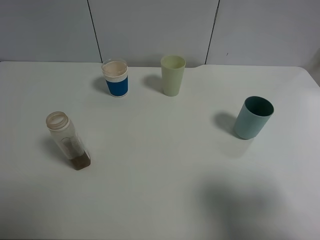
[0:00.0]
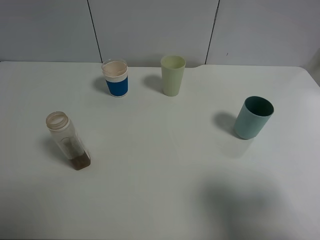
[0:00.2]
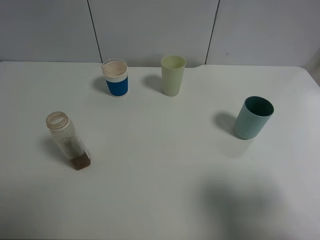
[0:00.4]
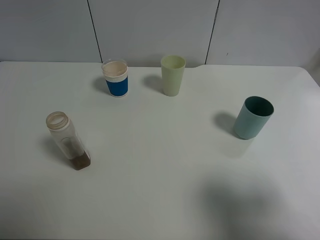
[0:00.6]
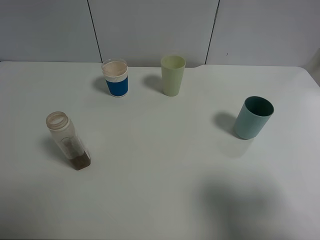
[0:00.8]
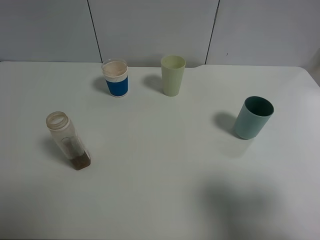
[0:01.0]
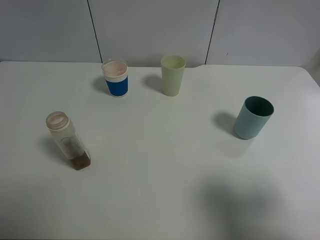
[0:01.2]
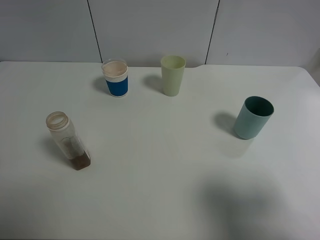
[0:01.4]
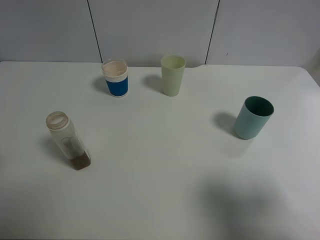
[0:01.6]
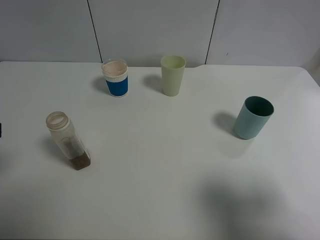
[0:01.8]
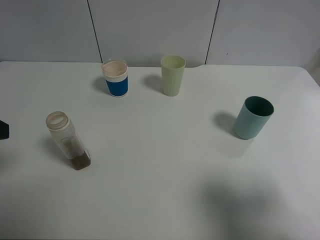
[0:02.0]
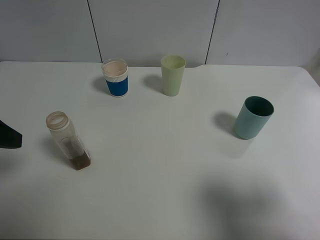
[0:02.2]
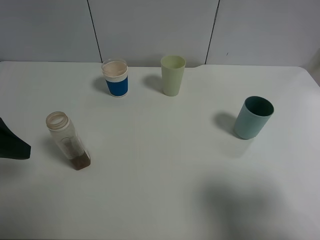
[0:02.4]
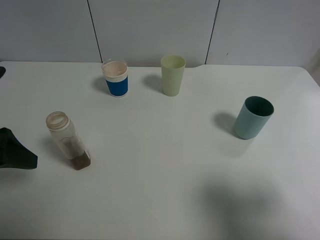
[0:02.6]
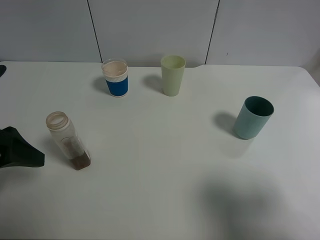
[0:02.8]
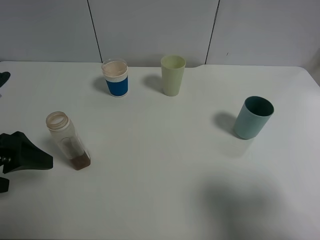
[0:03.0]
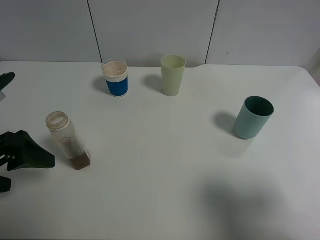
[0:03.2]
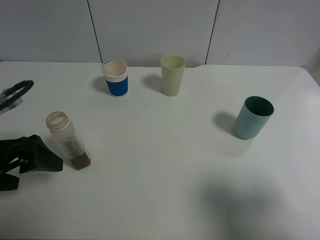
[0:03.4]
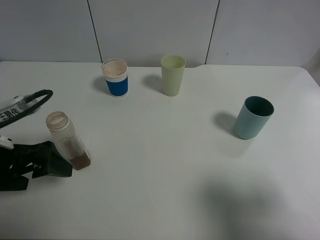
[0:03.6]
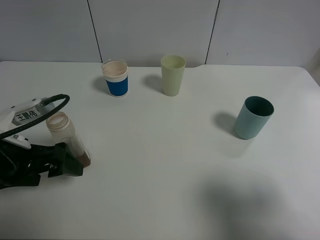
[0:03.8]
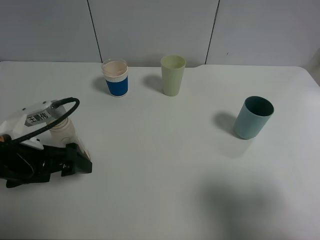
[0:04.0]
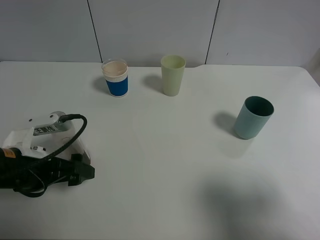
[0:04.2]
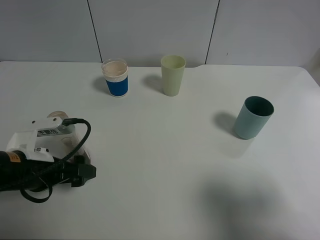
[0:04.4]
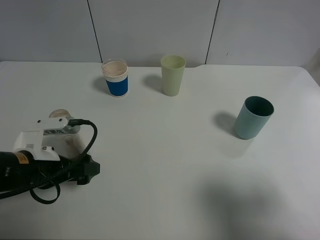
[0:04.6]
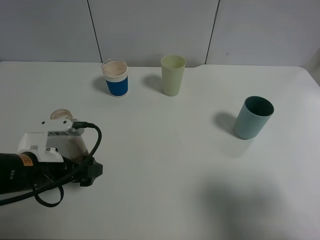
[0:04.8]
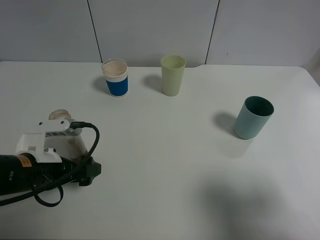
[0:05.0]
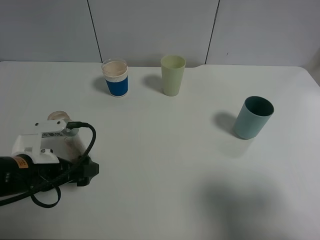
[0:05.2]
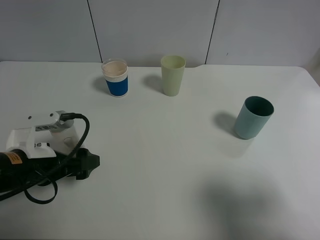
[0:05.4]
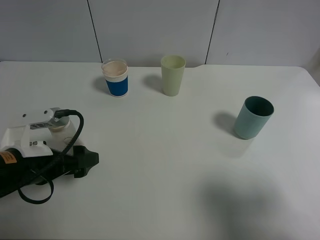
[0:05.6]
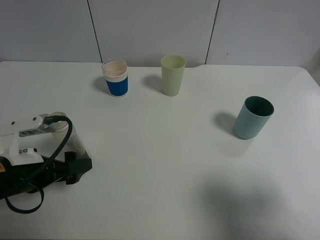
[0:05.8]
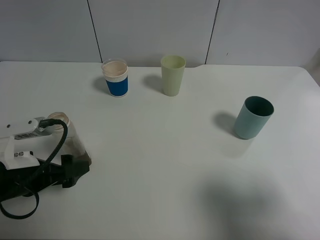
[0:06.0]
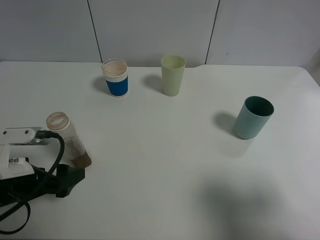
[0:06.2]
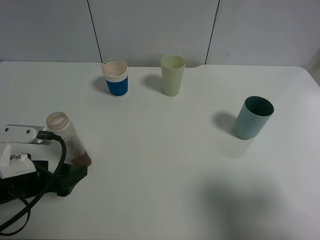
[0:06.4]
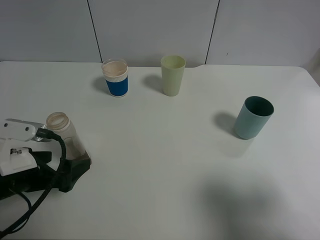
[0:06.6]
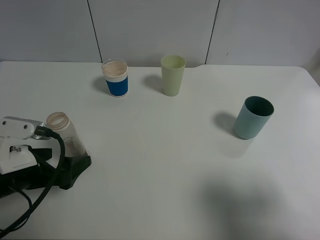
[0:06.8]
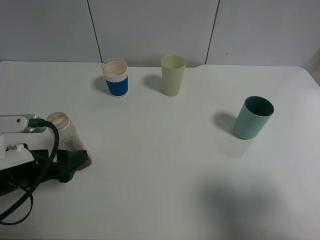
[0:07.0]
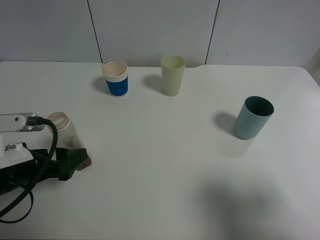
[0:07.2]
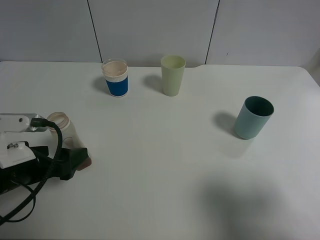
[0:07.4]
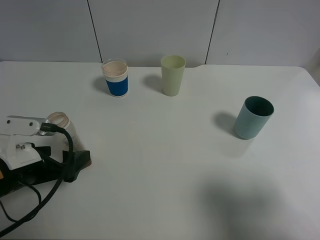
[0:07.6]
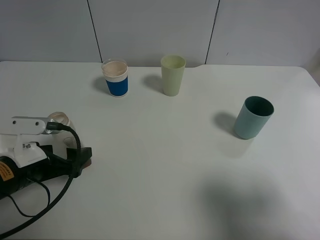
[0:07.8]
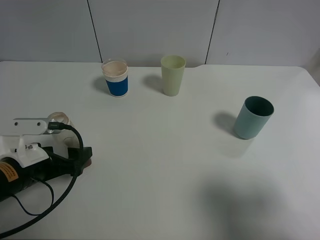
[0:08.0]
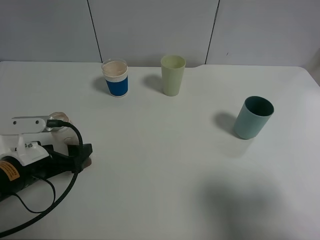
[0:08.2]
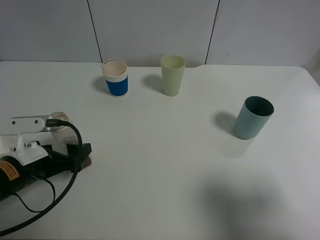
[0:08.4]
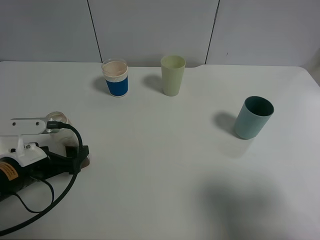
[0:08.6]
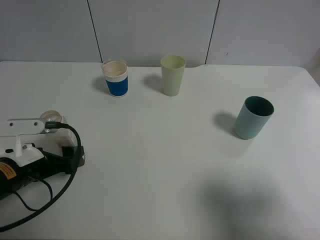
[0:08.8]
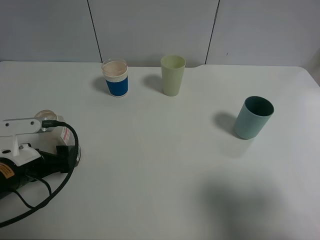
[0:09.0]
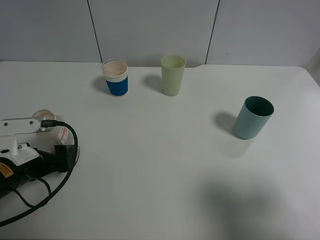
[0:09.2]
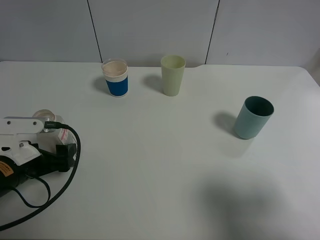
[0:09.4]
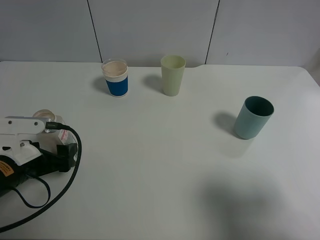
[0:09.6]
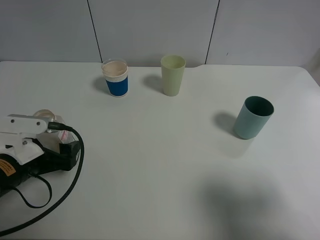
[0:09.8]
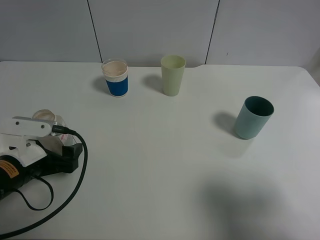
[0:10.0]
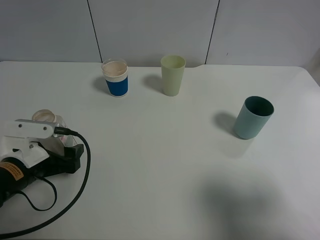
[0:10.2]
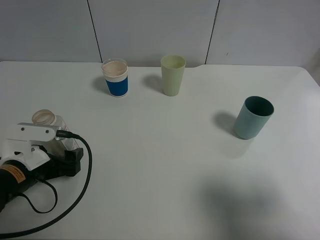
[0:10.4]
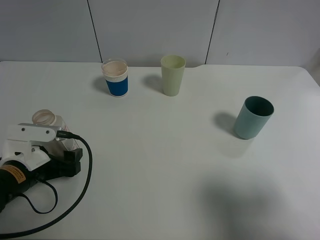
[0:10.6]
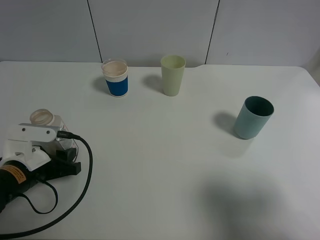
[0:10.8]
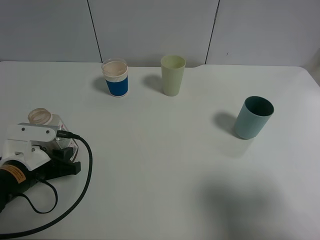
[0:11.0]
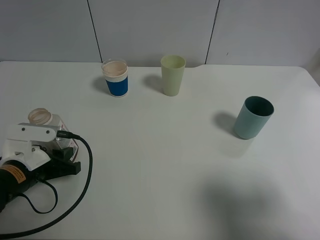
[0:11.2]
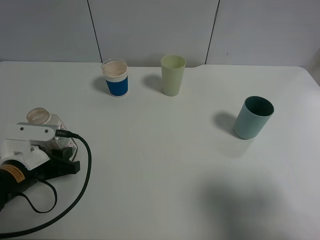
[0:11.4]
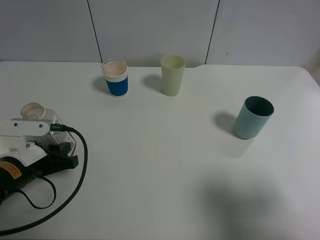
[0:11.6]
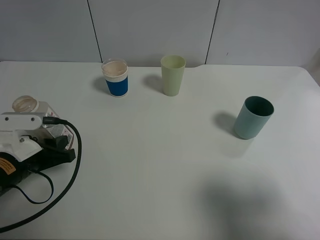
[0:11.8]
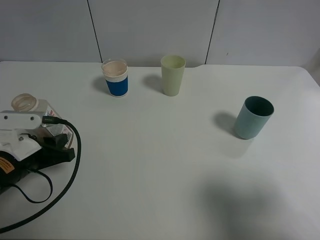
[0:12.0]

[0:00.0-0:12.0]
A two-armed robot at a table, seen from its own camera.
Task of the whole recording: use a clamp to hold the bottle of the drink, pour the beverage into a random cup, then clamp the cup containing the drink and pour the drink into another random cup.
Step, 0:00.0 to 0:11.6: Pick up the drink bottle with left gripper.
0:01.6 to 0:03.0: The left gripper moves downward, approximately 10 cm.
0:03.0 to 0:04.4: The left gripper moves downward and to the right, approximately 10 cm.
0:04.4 to 0:06.0: The grippers stay close to where they were, moving slightly.
0:06.0 to 0:09.0: There are only small adjustments of the grippers.
0:09.0 to 0:10.4: The grippers move only a little.
0:10.4 to 0:12.0: The left gripper closes.

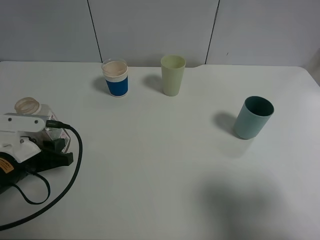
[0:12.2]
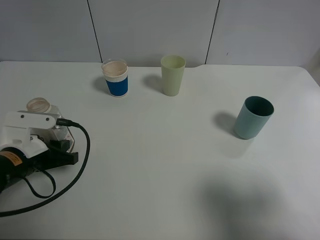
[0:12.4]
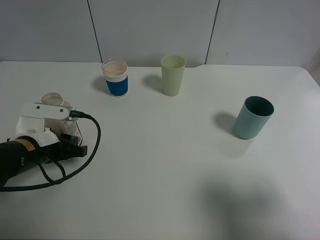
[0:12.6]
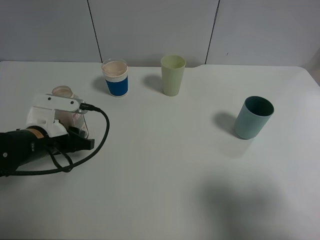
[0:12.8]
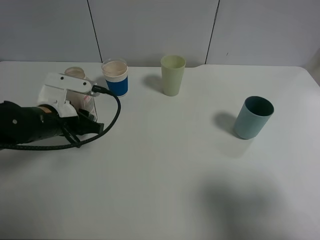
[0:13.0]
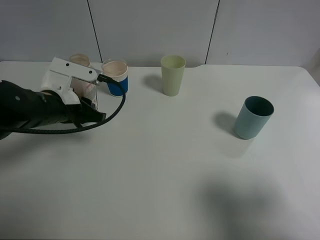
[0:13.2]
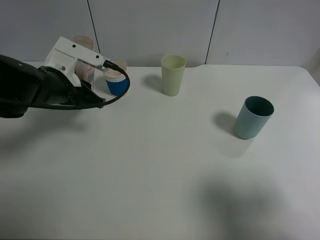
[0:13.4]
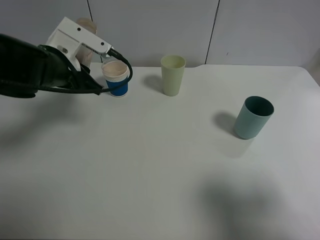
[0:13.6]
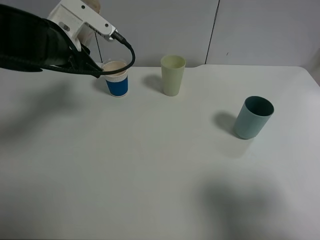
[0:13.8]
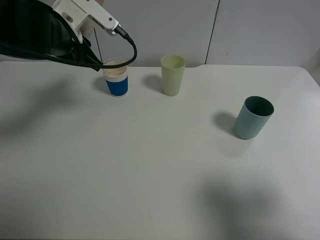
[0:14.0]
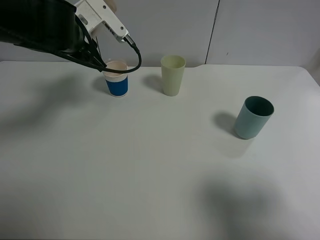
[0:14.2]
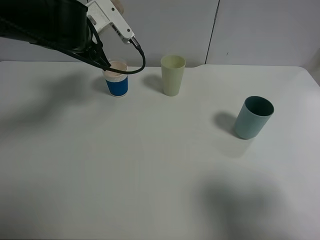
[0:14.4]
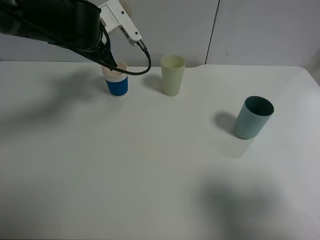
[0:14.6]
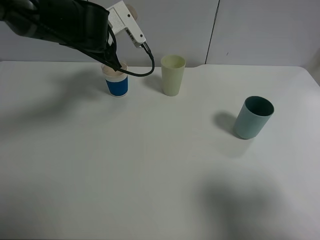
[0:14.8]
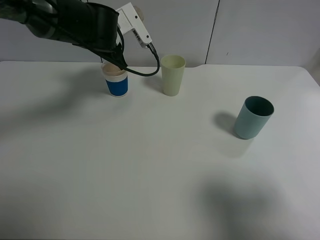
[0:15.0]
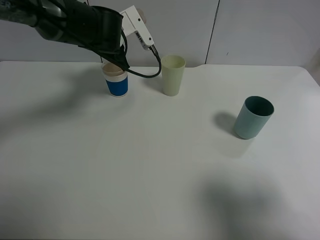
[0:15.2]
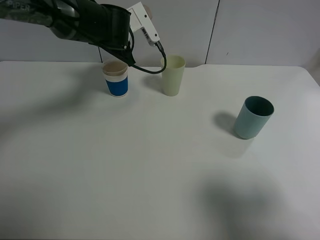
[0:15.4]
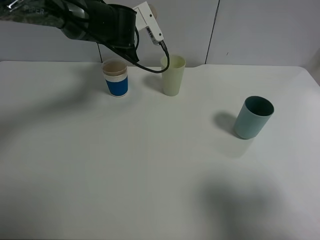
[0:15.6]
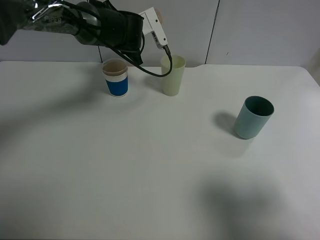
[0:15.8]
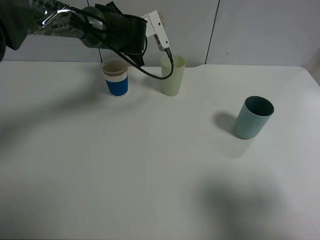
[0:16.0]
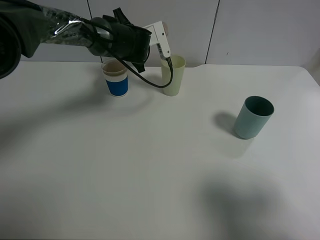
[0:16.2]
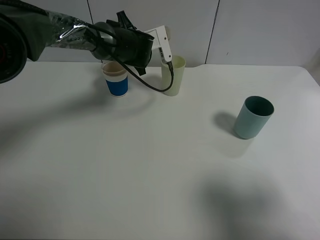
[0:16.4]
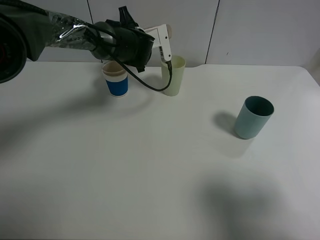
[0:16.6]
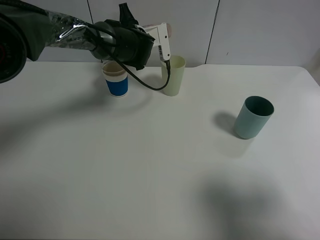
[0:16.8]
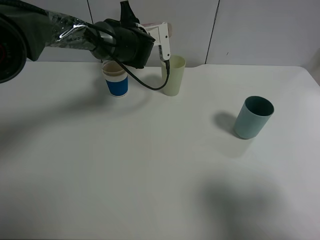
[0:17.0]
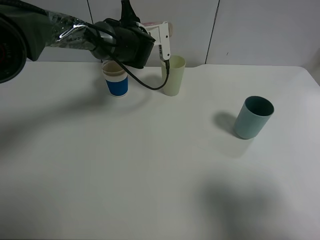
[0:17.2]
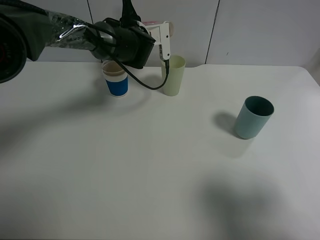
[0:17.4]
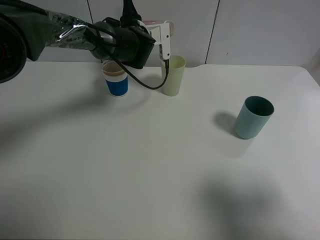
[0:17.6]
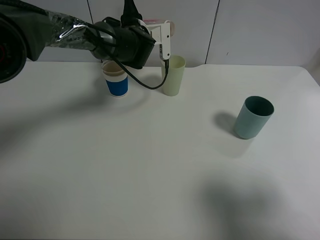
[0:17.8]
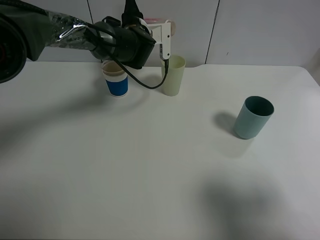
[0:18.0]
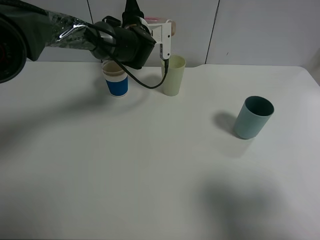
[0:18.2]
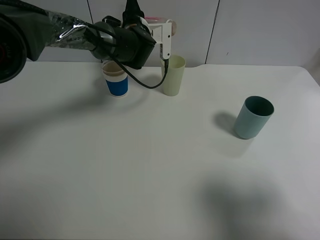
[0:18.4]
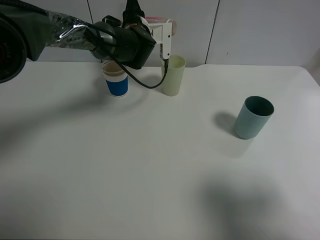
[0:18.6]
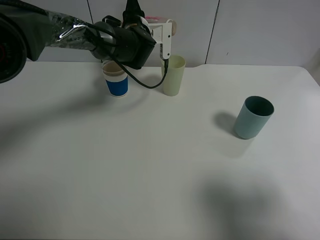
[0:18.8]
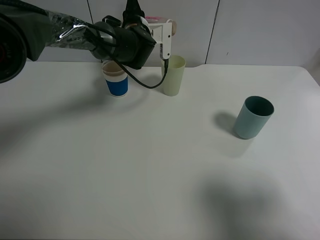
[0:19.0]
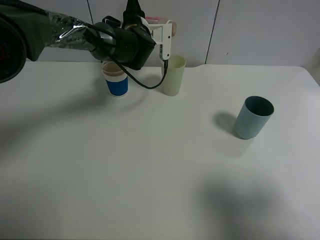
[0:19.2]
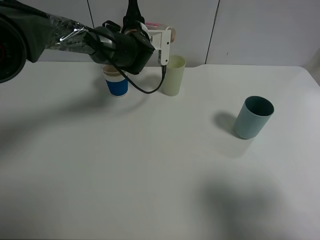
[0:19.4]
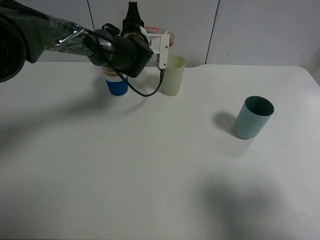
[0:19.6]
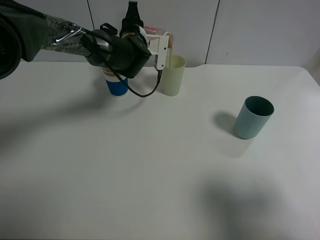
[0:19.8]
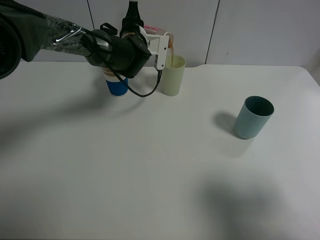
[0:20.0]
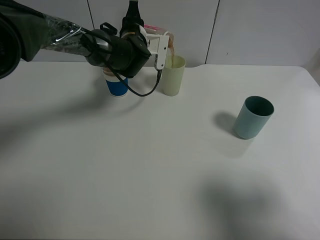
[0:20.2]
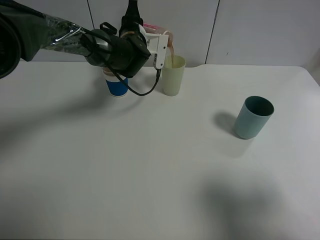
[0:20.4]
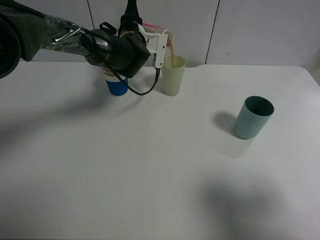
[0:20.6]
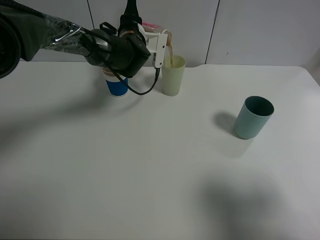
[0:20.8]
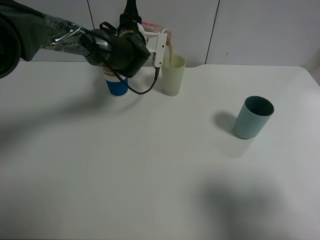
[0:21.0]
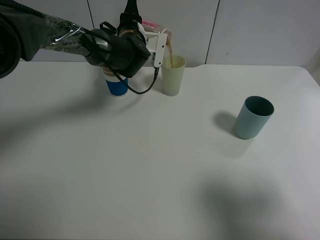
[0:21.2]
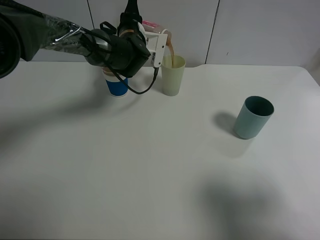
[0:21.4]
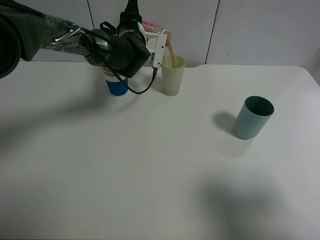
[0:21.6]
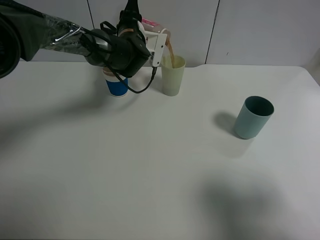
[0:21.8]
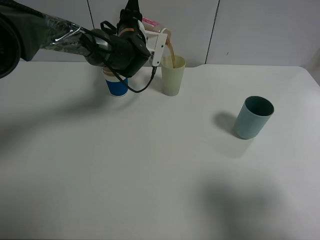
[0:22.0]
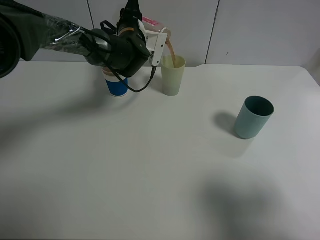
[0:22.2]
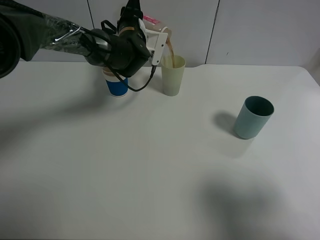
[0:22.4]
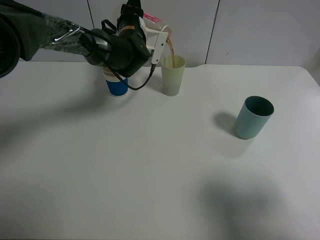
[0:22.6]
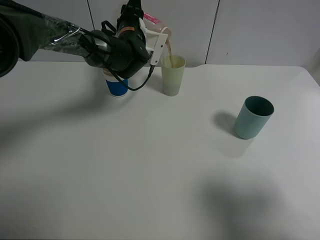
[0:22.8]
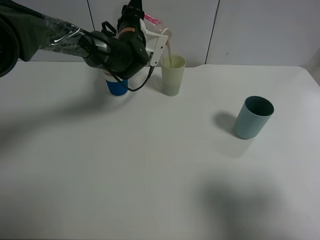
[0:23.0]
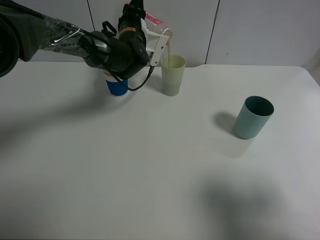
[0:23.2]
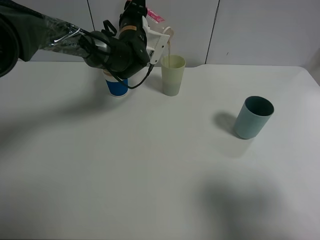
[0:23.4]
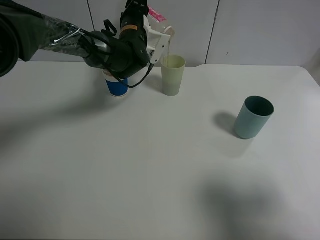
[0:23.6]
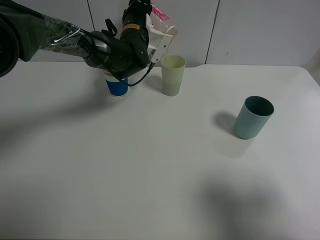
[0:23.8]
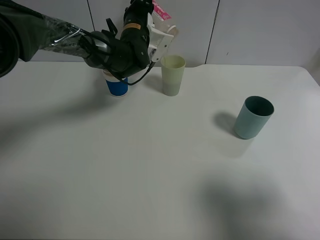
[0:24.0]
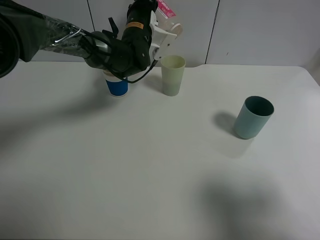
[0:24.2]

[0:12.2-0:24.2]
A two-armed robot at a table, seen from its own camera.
Task of the whole recording: use a clamp to hold the bottle of the drink, pour the beverage into a random cup, then clamp the cup containing the drink and pour the drink into another random cup.
0:12.2 to 0:13.8: The left gripper is displaced forward, upward and to the right by some 20 cm.
0:13.8 to 0:15.2: The left gripper shifts about 10 cm forward and to the right.
0:15.2 to 0:16.6: The left gripper is displaced forward by approximately 5 cm.
0:16.6 to 0:18.2: The grippers move only a little.
0:18.2 to 0:19.8: The grippers make only small movements.
0:19.8 to 0:21.2: Neither gripper changes place.
0:21.2 to 0:22.6: The grippers stay close to where they were, moving slightly.
0:22.6 to 0:24.2: There are only small adjustments of the grippers.
